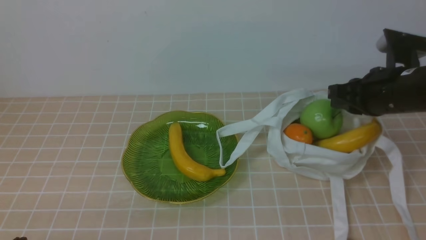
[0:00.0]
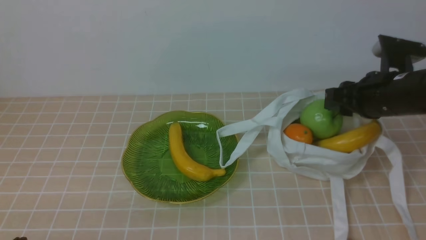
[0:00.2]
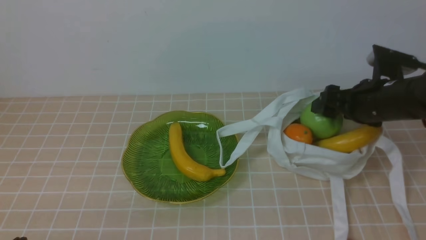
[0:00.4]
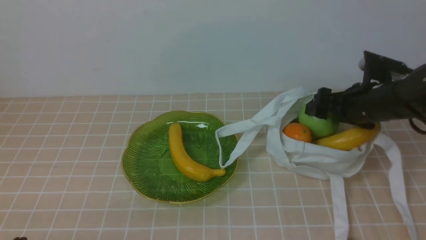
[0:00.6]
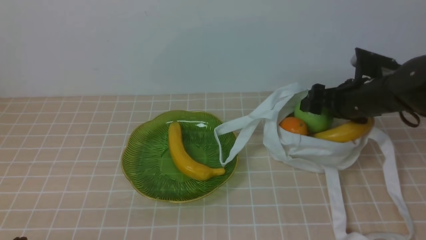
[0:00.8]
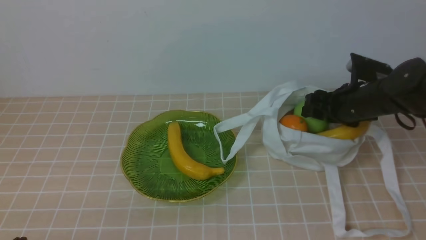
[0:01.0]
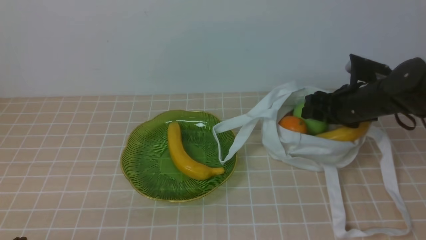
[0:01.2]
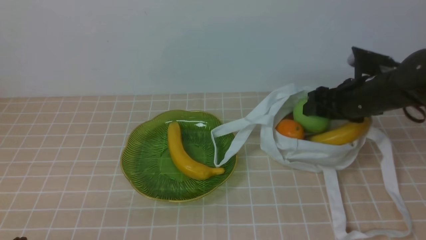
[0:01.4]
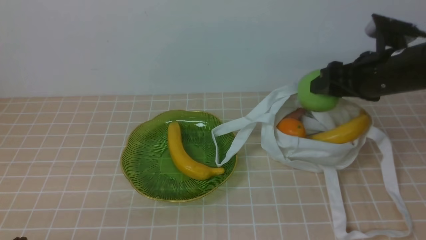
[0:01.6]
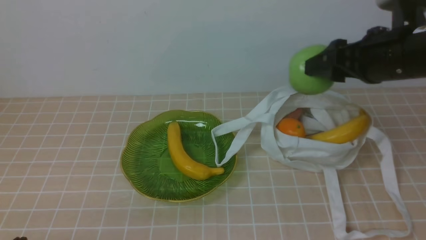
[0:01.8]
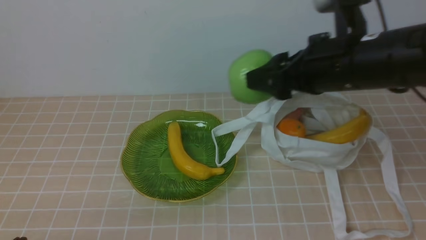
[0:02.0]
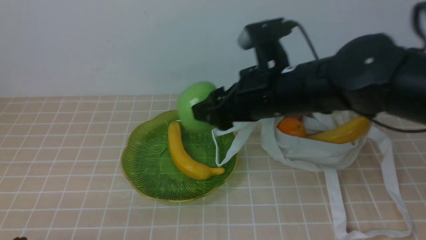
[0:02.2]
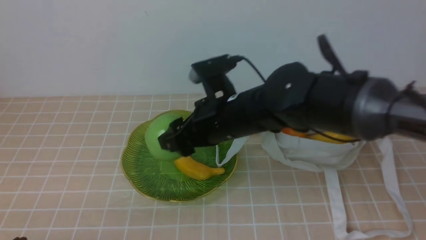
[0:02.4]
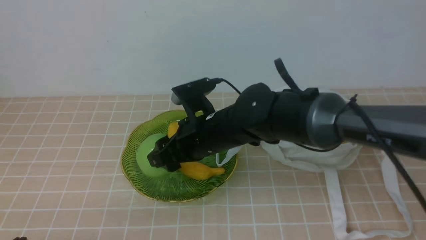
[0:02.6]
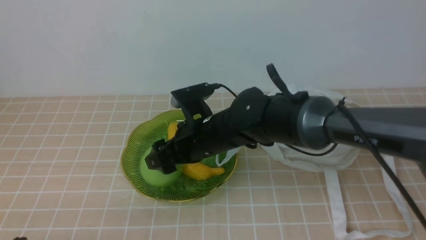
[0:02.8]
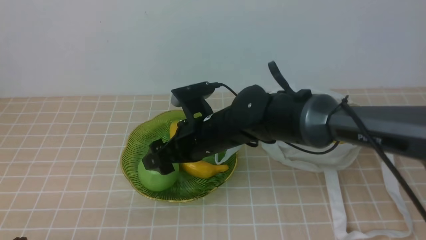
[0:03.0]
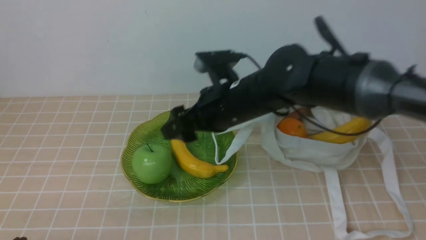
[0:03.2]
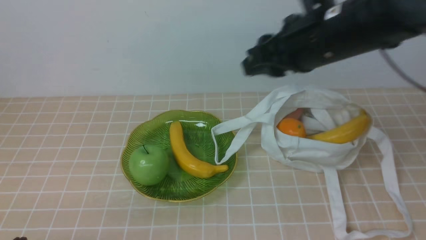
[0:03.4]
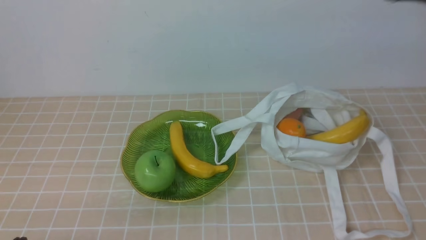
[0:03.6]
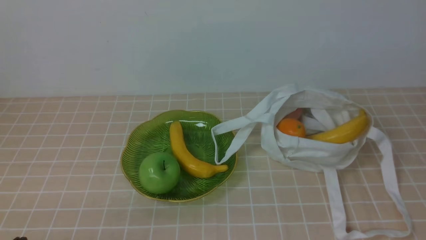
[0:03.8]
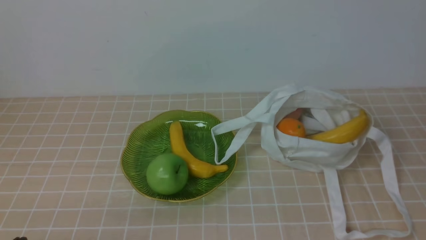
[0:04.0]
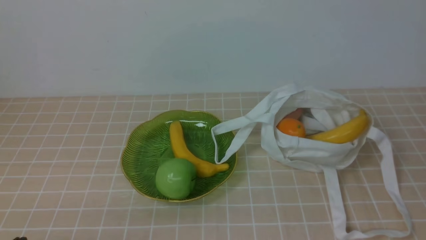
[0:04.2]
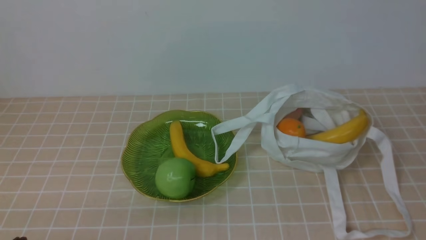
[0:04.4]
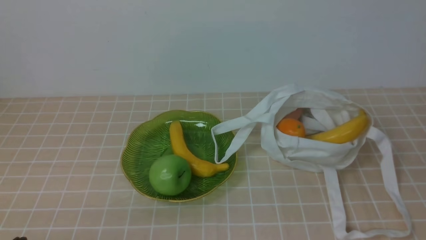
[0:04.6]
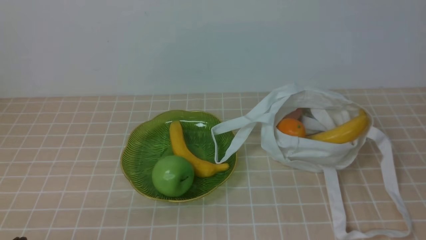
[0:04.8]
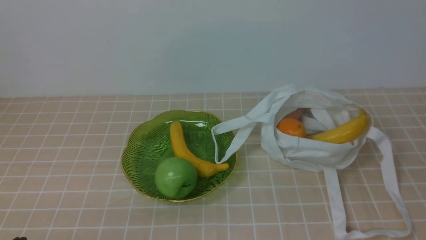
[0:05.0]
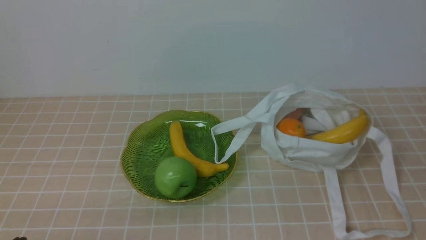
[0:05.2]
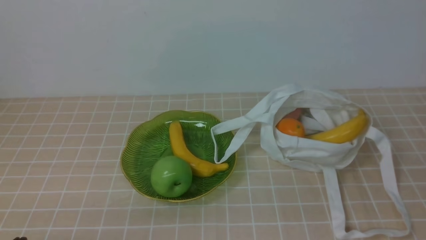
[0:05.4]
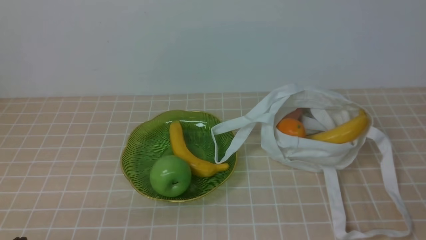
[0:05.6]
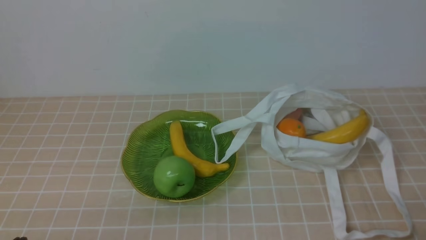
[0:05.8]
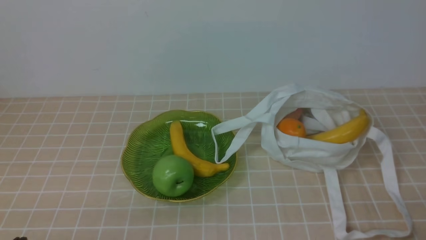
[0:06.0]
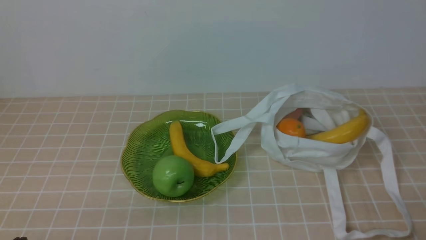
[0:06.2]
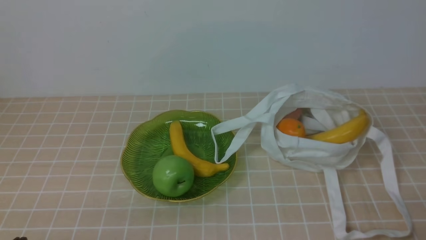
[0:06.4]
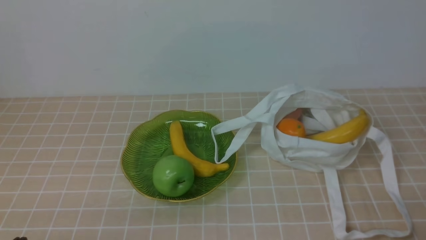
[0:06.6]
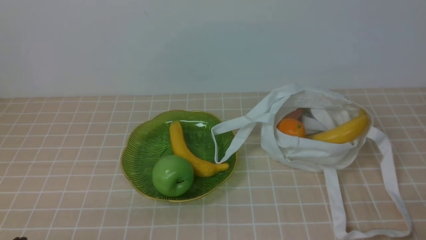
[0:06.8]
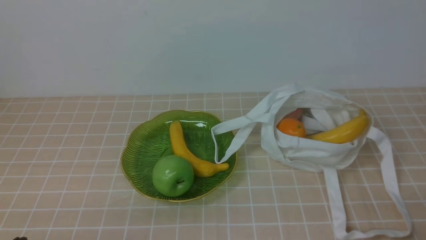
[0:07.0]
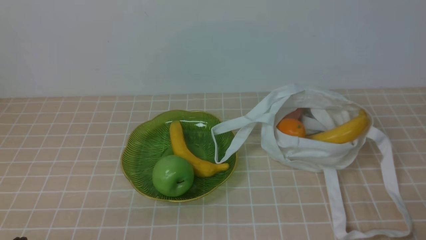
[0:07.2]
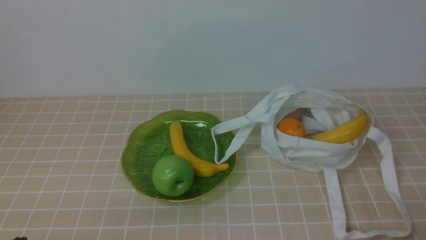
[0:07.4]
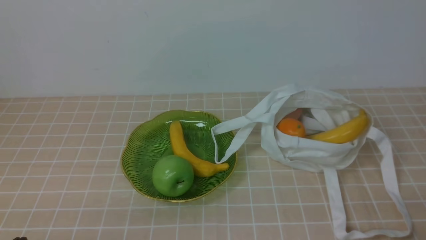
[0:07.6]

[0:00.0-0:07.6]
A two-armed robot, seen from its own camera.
Step, 0:01.6 to 0:03.0: use the right arm to put the apple into the empty plate on the left.
0:00.0 to 0:01.6: The right gripper opens its fingers.
0:01.6 to 0:03.0: The right gripper is displaced to the left by approximately 25 cm.
0:03.0 to 0:04.6: The right gripper heads backward, to the right and upward, covering some 50 cm, and closes its fingers.
0:06.0 to 0:07.6: Neither gripper changes place.

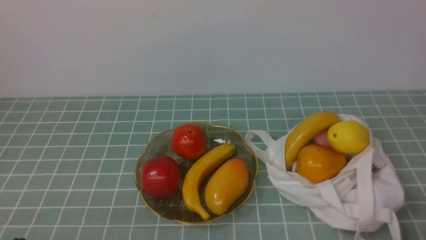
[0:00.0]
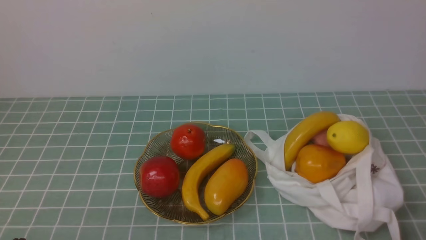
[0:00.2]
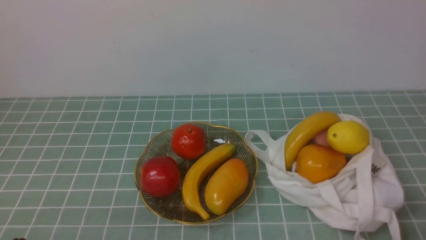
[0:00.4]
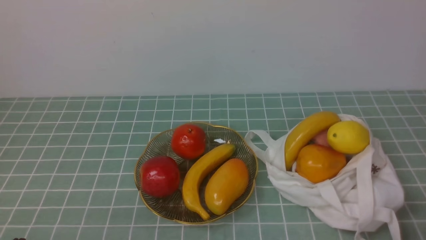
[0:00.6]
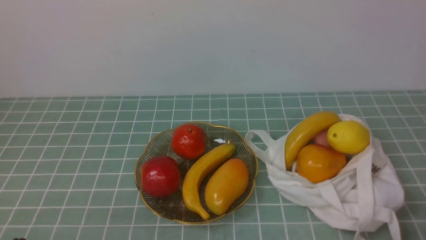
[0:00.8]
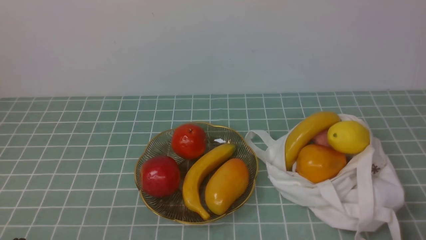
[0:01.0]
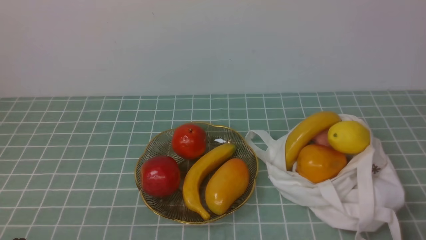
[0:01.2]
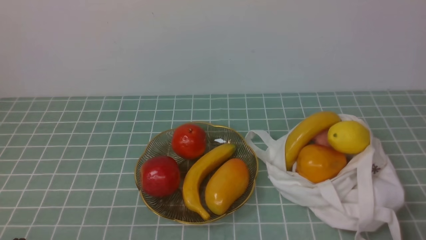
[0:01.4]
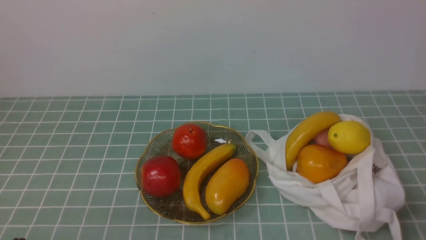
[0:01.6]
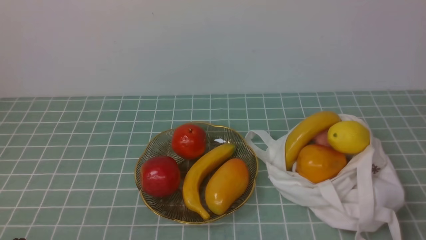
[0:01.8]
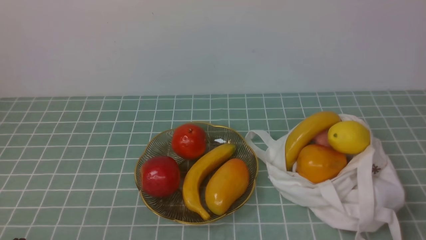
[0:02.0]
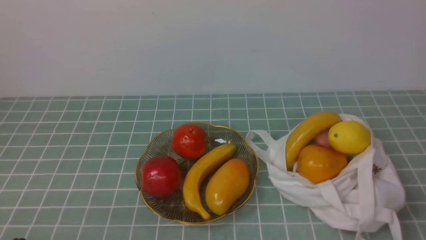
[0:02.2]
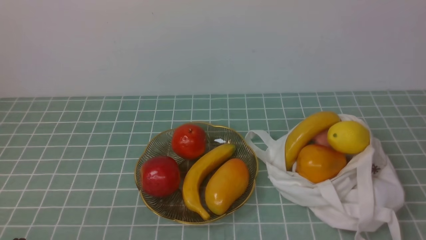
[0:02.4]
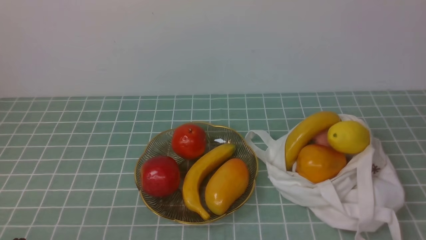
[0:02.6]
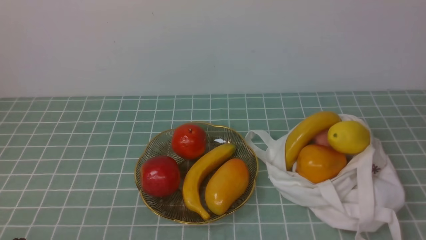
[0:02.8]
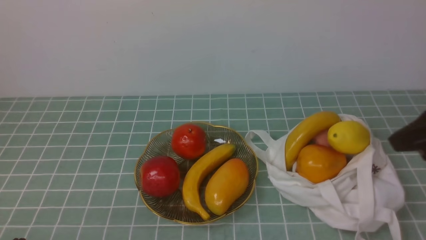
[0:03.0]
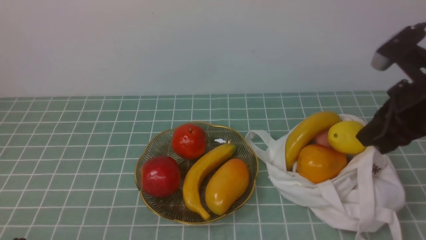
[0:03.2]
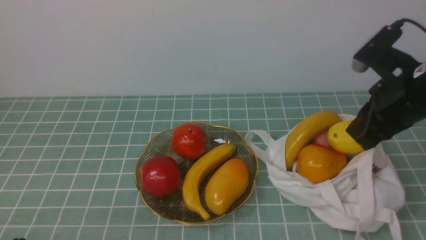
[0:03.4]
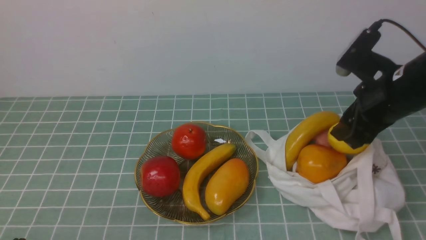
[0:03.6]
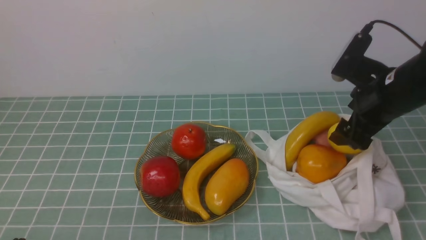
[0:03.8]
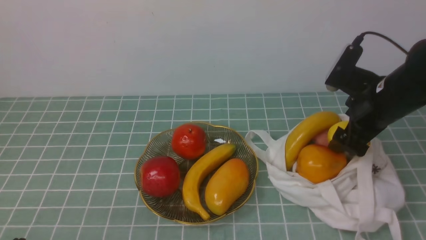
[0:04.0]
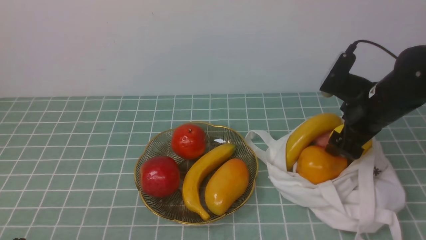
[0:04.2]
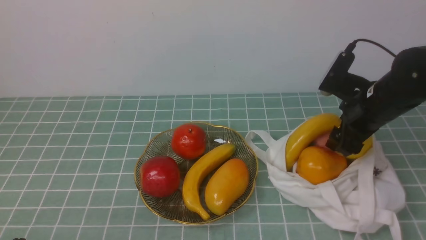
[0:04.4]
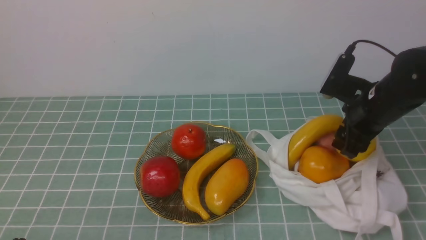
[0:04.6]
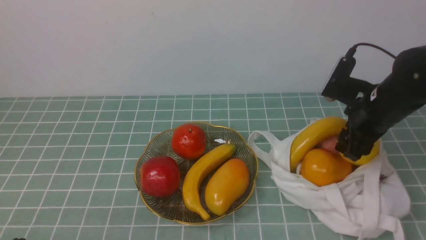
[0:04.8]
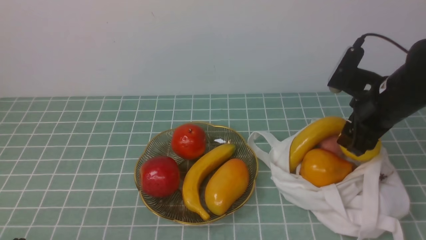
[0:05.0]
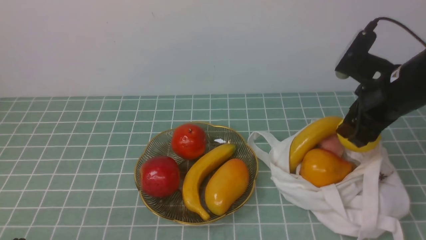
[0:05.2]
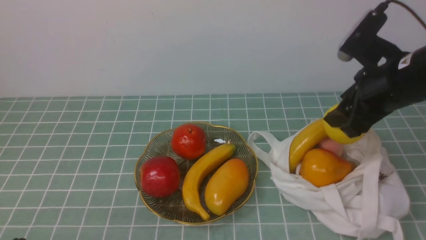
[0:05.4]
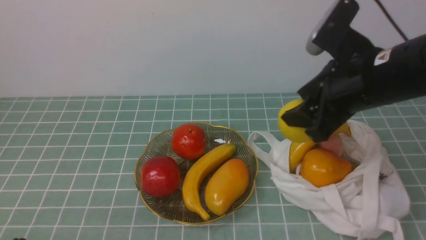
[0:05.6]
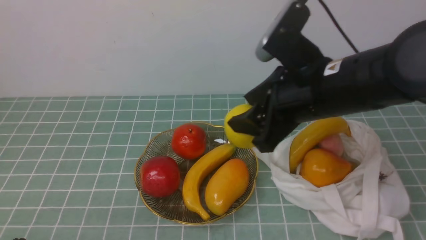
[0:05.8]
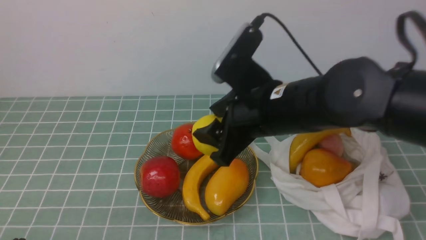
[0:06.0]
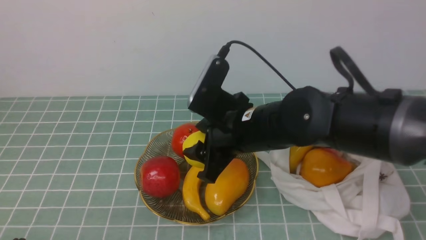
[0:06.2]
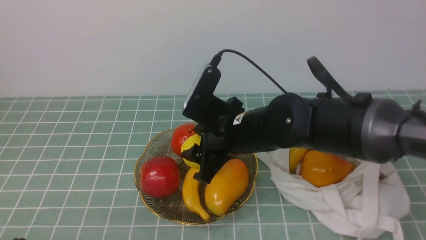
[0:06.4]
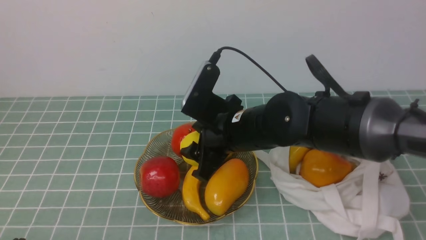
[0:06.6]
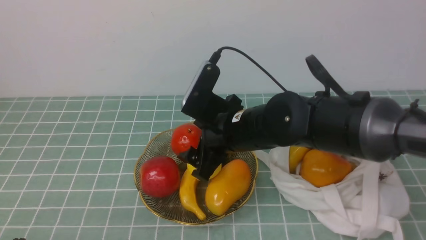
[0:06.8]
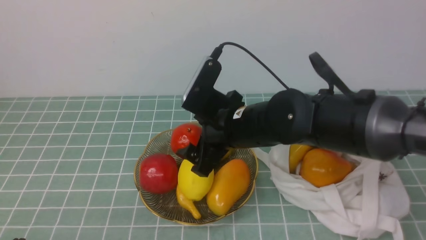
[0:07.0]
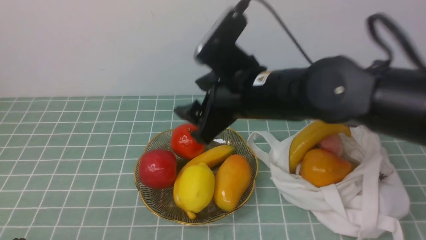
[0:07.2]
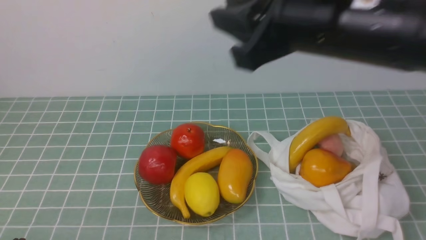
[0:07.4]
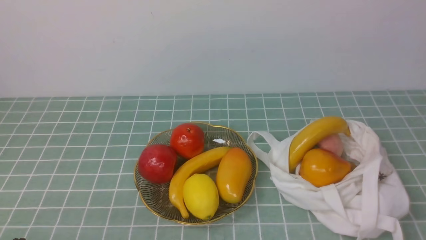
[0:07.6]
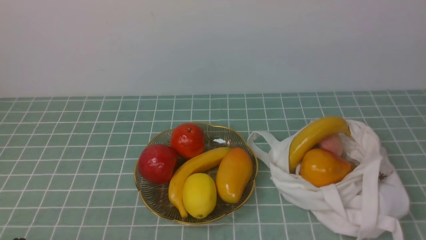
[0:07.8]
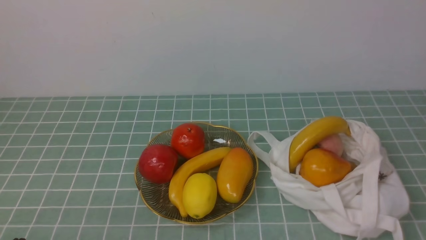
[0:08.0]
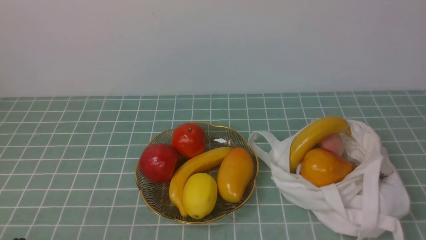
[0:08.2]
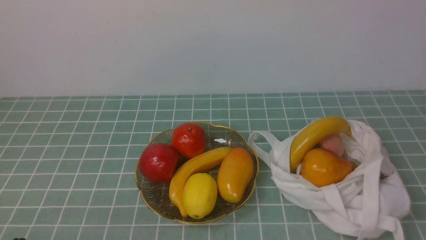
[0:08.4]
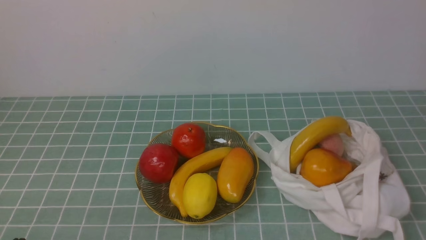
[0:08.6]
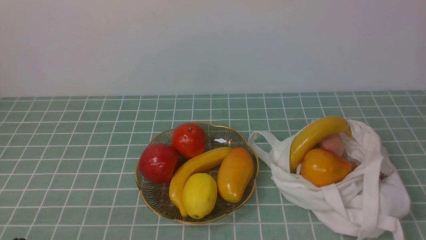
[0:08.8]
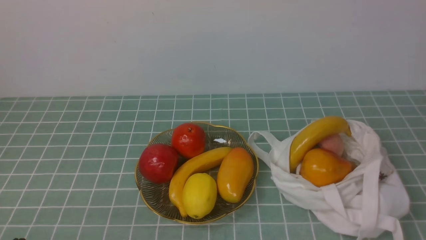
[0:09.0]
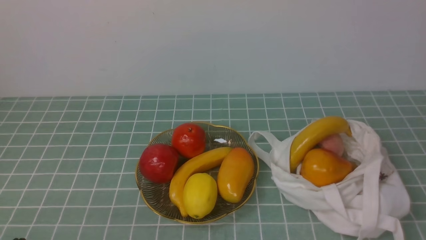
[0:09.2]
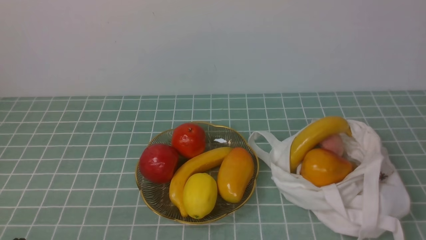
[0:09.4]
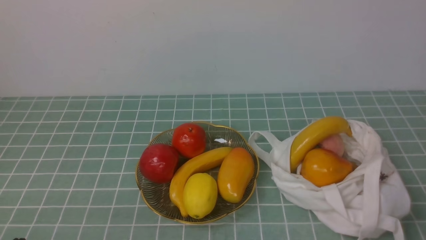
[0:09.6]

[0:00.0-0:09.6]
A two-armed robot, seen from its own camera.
Step, 0:00.0 to 0:04.8: use the right arm to grab a lemon from the bag.
Step, 0:05.0 to 0:06.8: use the right arm to put the lemon into the empty plate on the left.
0:01.6 to 0:03.2: The right gripper goes about 25 cm forward and upward.
0:03.2 to 0:04.8: The right gripper shifts roughly 15 cm downward and forward, and opens its fingers.
0:04.8 to 0:06.4: The right gripper shifts roughly 20 cm to the left.
0:06.4 to 0:08.0: The right gripper travels upward, to the right and backward by approximately 40 cm, and closes up.
